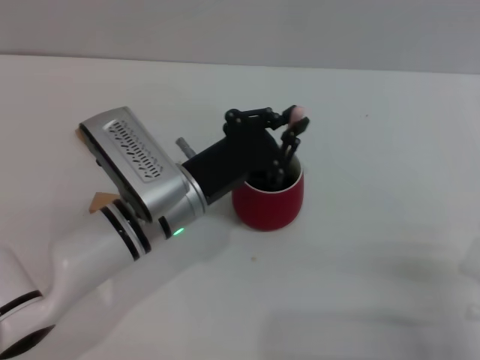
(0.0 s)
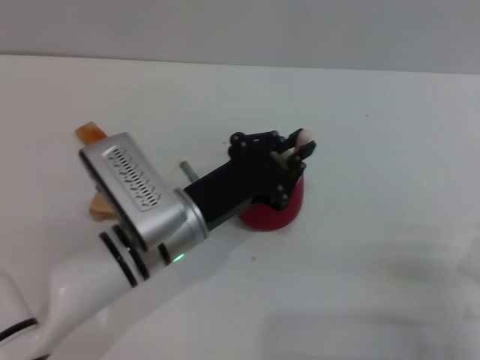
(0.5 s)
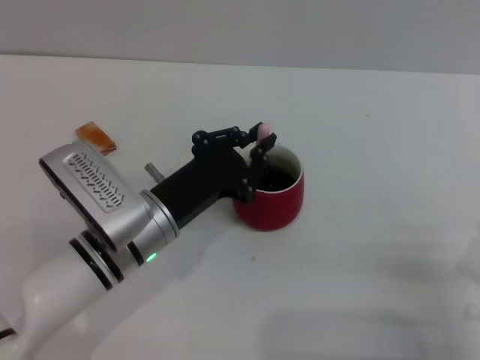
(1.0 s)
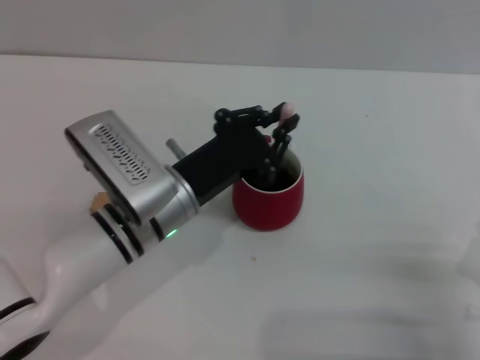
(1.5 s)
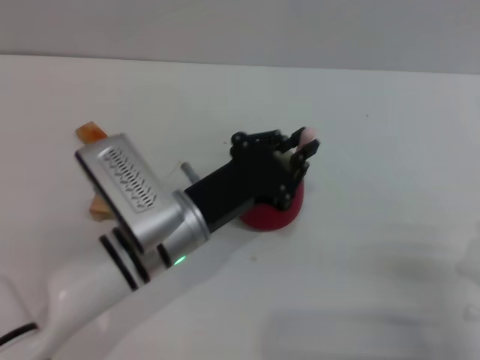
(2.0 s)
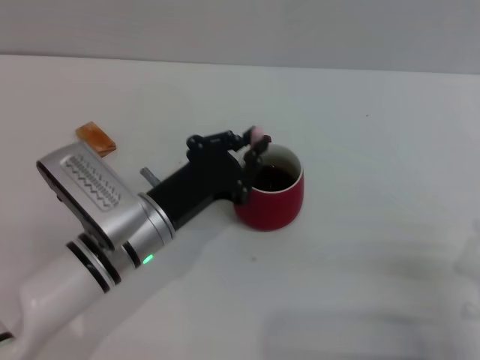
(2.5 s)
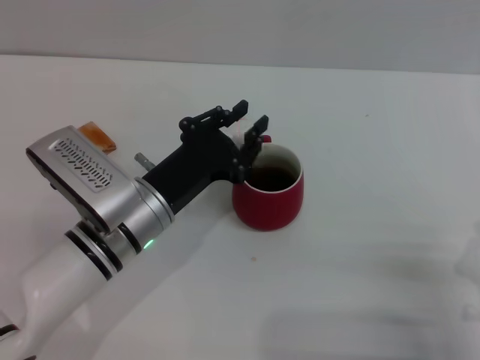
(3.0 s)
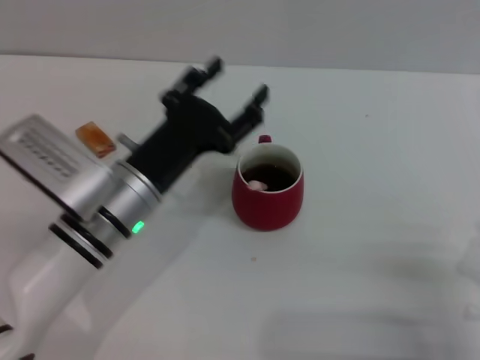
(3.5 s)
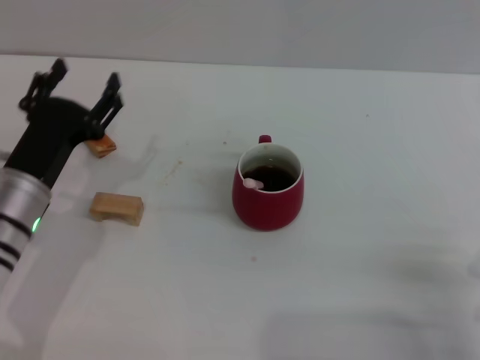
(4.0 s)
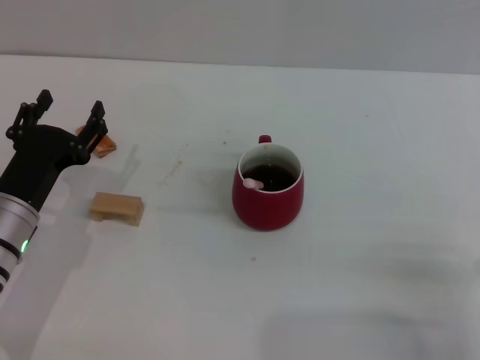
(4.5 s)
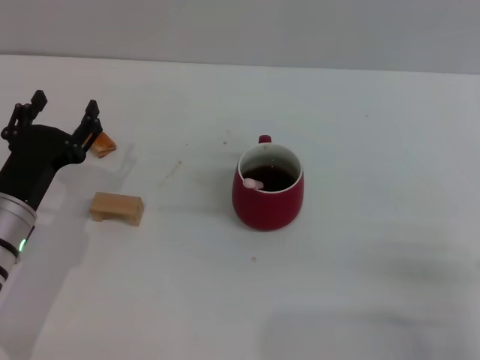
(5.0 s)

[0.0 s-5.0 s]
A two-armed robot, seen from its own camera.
Task of the whole recording: Move the red cup to the center, lift the pink spoon, stir it three times in the cup, and put the spoon into the cup.
Step, 0.0 to 3.0 s: Stir the coffee in the cup with the left gripper.
0.0 to 2.5 s: The grippers make only small movements.
2.5 to 5.0 s: The left gripper moves to the left, about 10 cm, and opens.

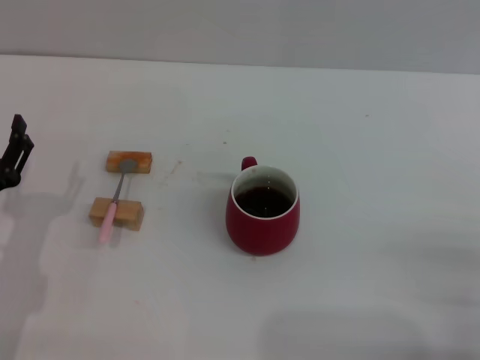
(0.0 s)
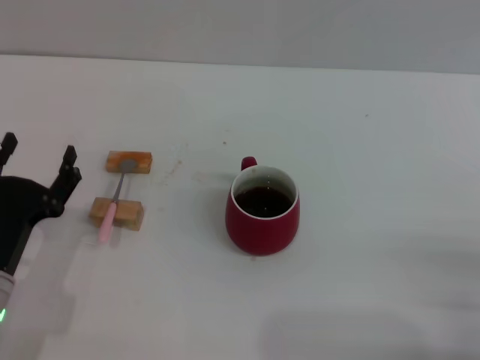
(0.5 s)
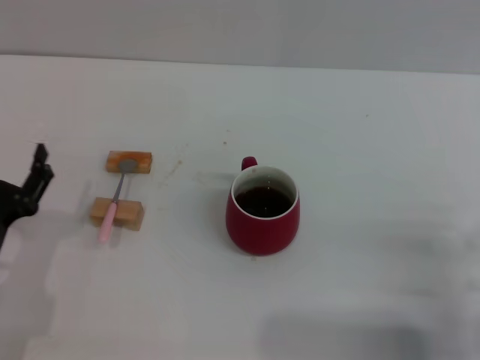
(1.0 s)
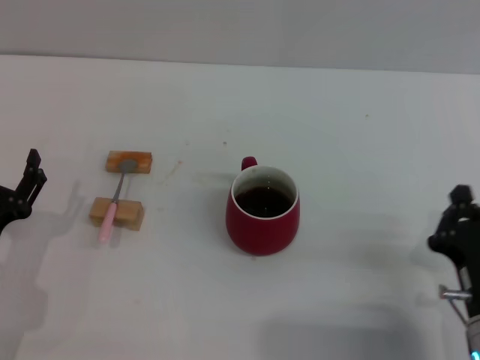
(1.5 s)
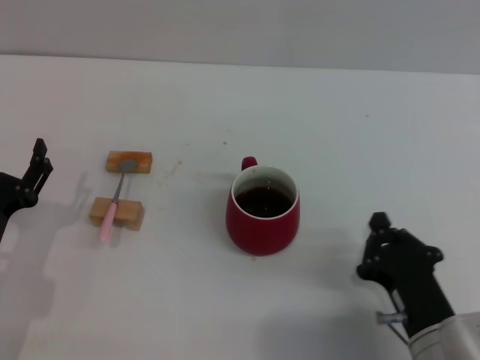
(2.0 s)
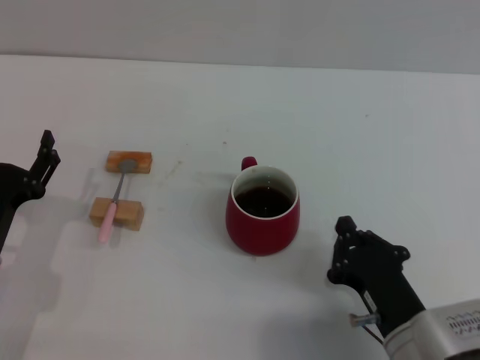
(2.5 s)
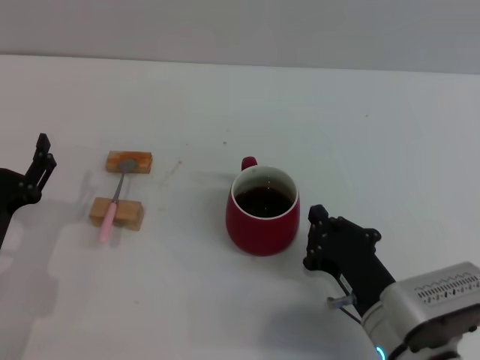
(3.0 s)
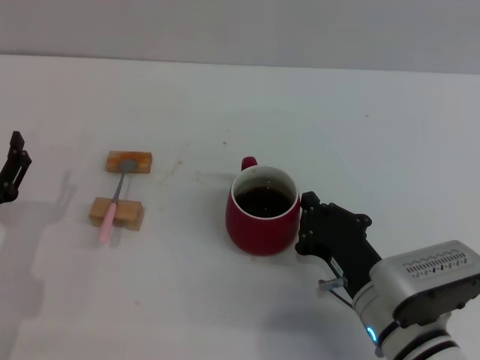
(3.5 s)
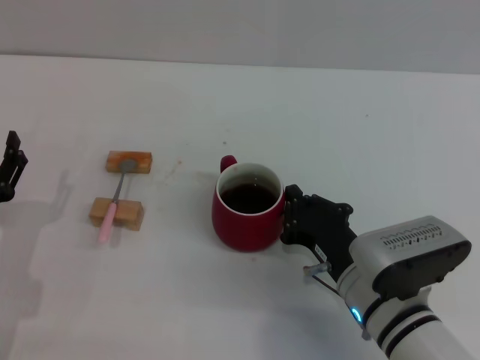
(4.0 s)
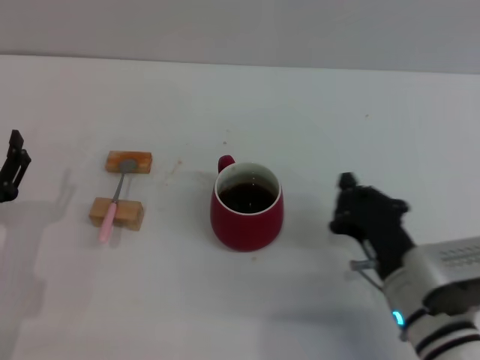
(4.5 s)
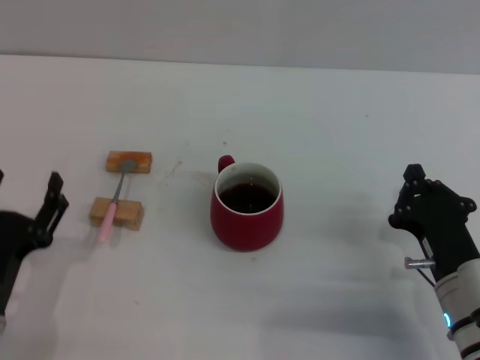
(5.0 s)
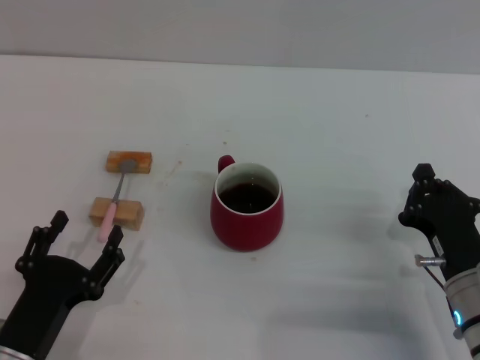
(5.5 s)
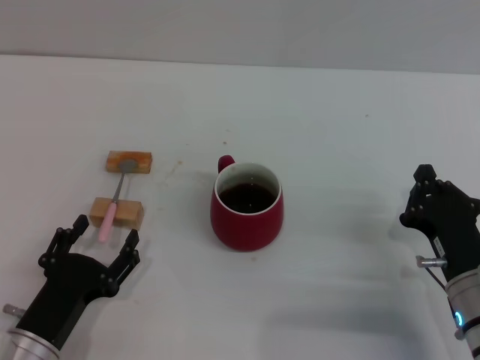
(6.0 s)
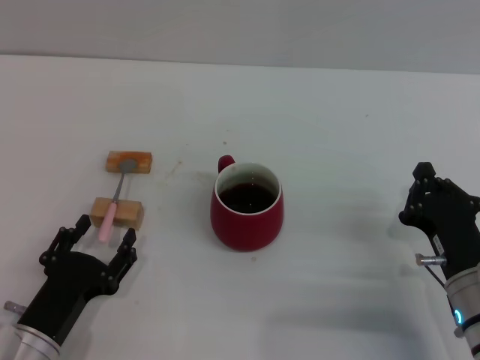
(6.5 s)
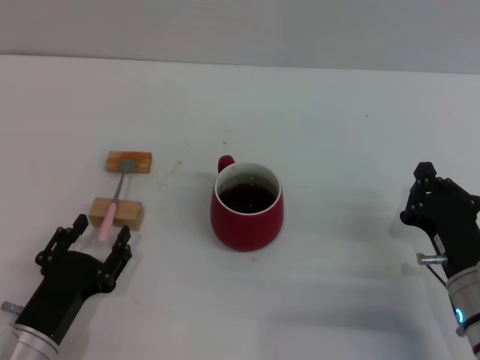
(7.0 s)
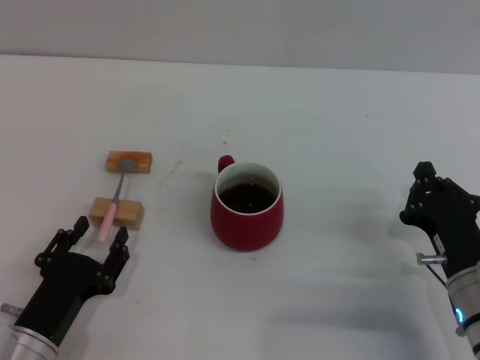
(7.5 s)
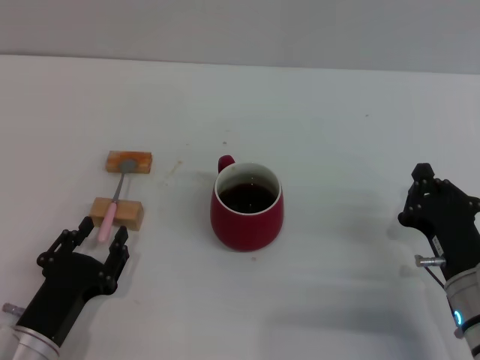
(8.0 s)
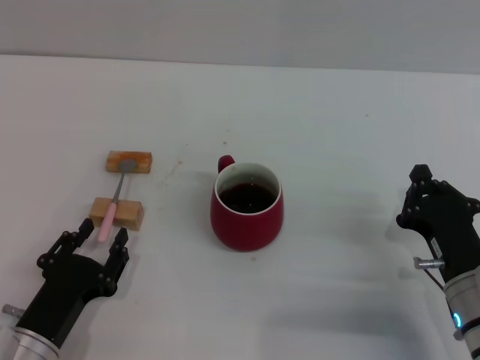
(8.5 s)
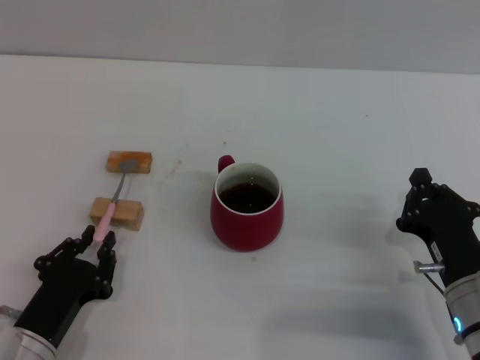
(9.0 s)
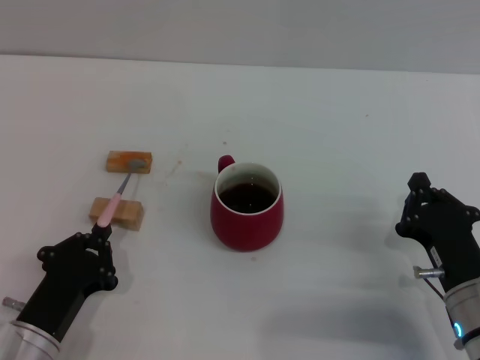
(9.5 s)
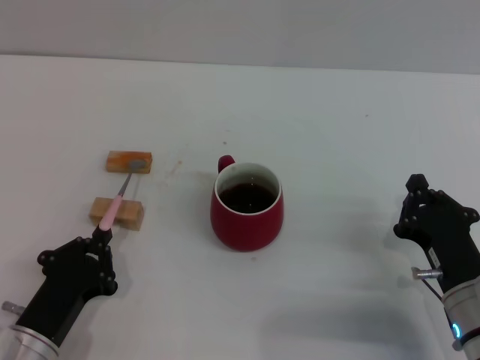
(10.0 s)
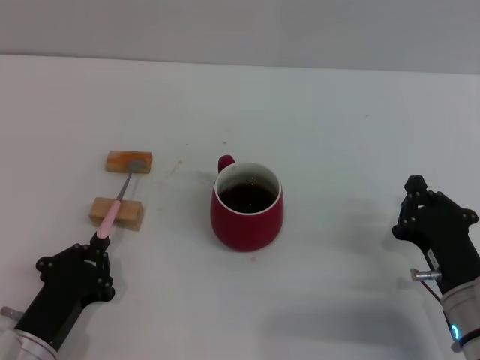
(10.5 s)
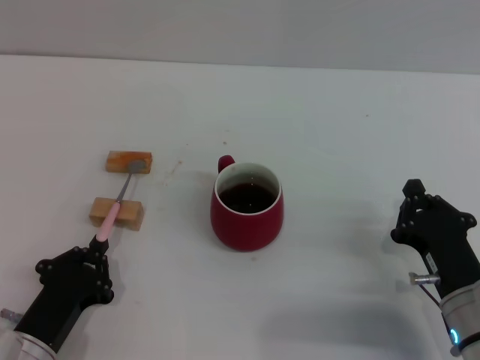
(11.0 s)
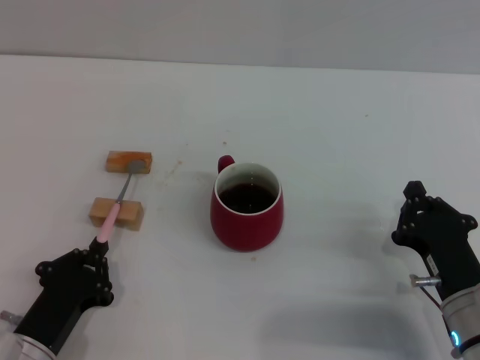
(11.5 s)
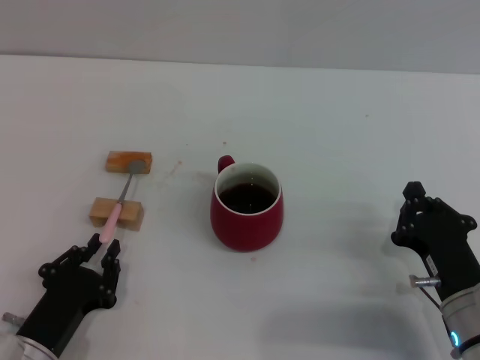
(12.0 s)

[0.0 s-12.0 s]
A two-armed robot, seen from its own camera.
Task of the whole recording: Move the red cup to the center, lift the pink spoon, stir it three times in the cup, and put the spoon into the cup.
Step, 0.0 to 4.5 s: Move the cup with coffee to the center of view with the right gripper.
0.0 to 2.0 s: The right gripper shifts approximately 10 cm to the left.
2.0 to 4.0 s: The right gripper goes roughly 5 cm forward.
4.0 to 6.0 s: The right gripper heads to the right, covering about 10 cm. The left gripper travels to the right and backward by about 10 cm.
6.0 to 8.0 s: The two grippers keep their place.
8.0 to 10.0 s: The left gripper closes up.
10.0 to 12.0 s: The two grippers keep their place.

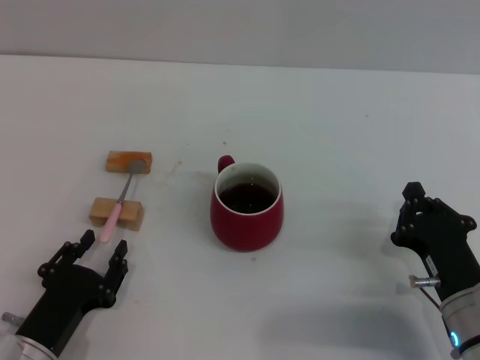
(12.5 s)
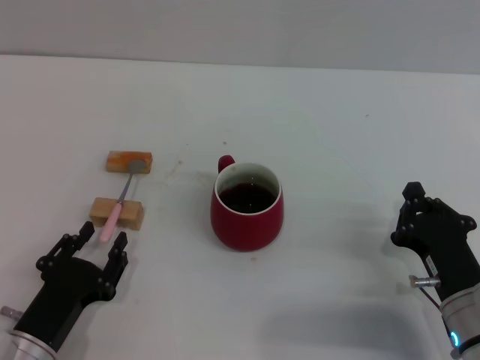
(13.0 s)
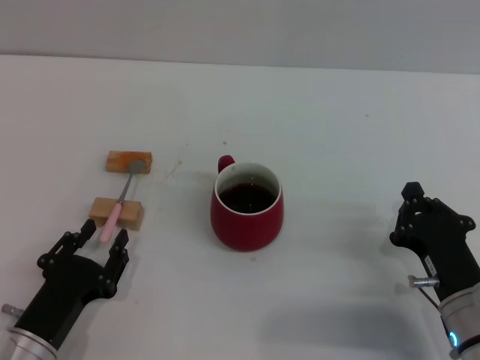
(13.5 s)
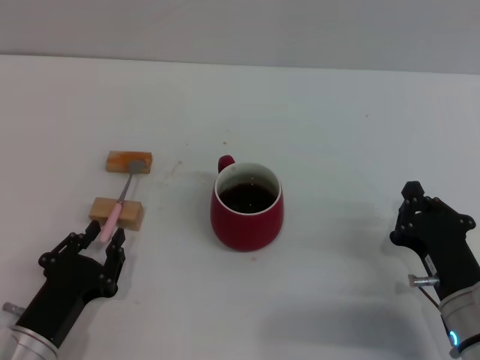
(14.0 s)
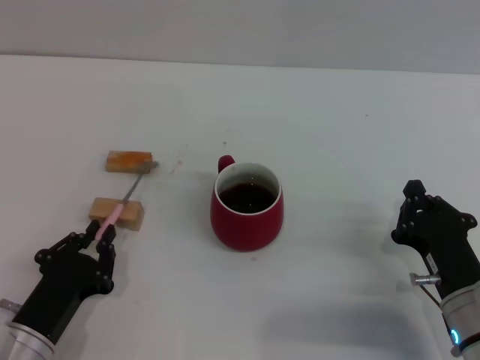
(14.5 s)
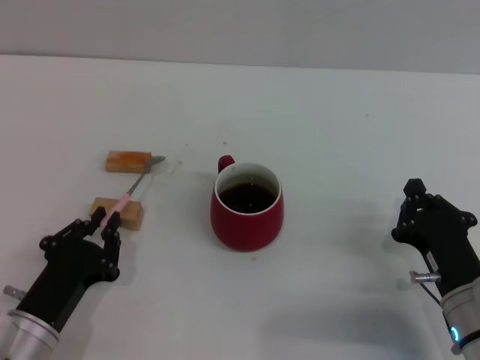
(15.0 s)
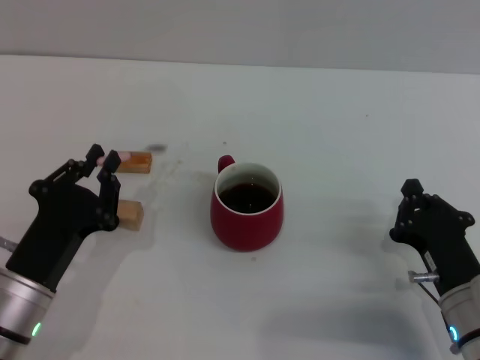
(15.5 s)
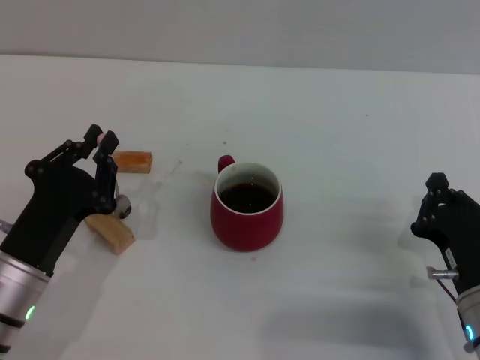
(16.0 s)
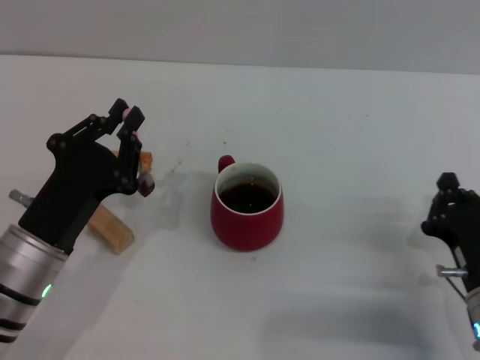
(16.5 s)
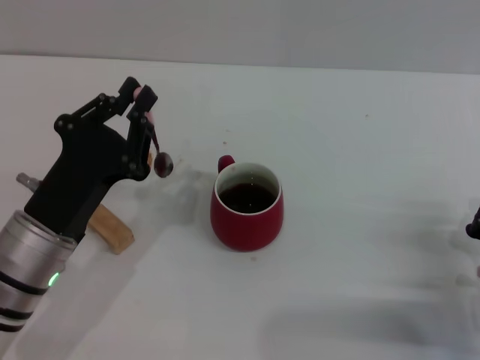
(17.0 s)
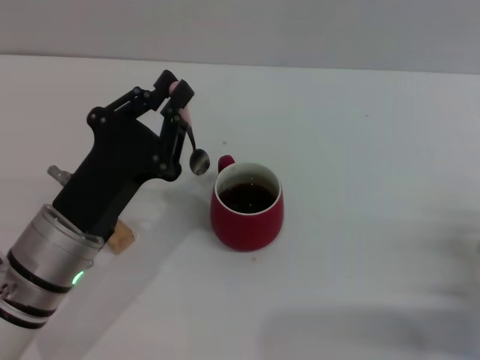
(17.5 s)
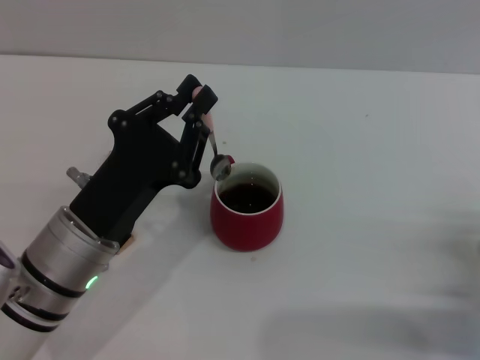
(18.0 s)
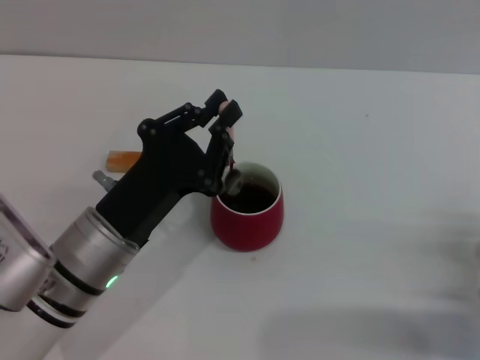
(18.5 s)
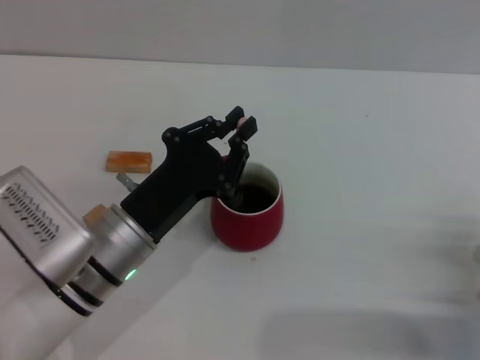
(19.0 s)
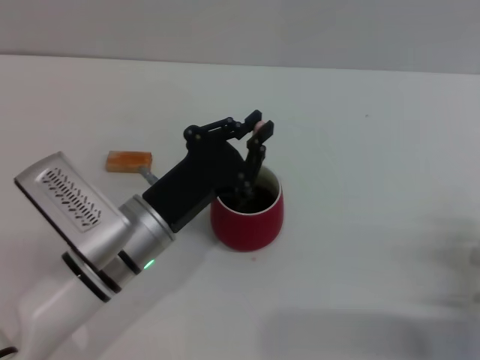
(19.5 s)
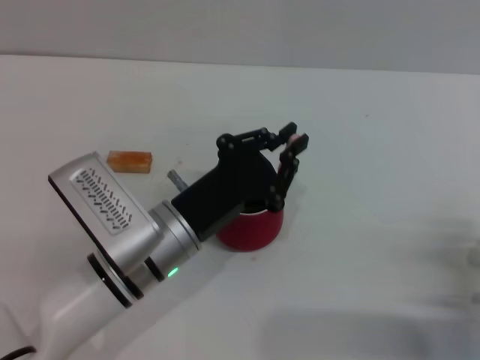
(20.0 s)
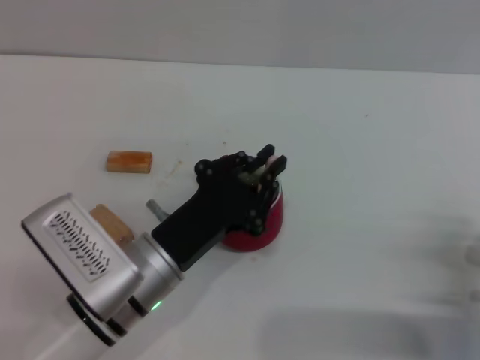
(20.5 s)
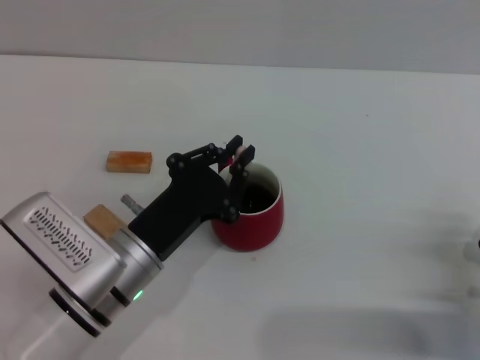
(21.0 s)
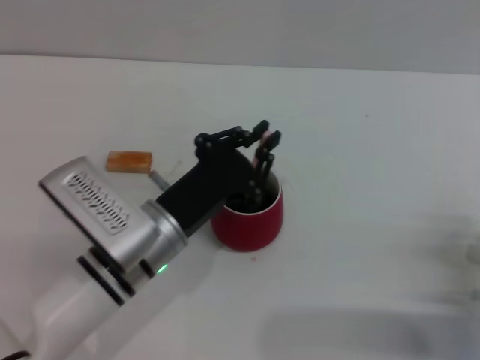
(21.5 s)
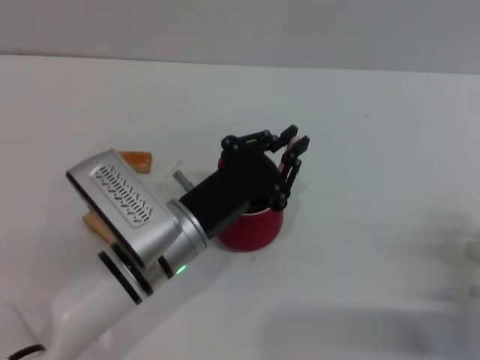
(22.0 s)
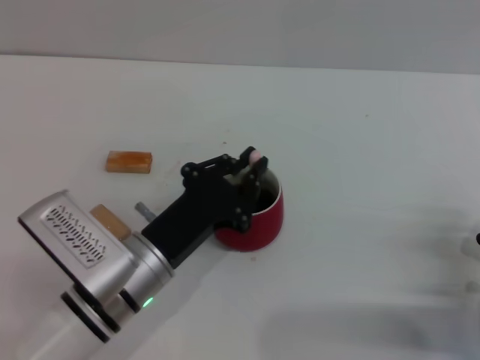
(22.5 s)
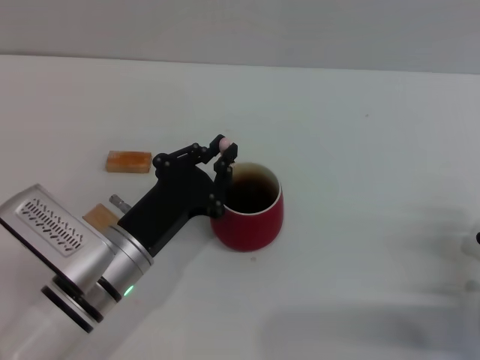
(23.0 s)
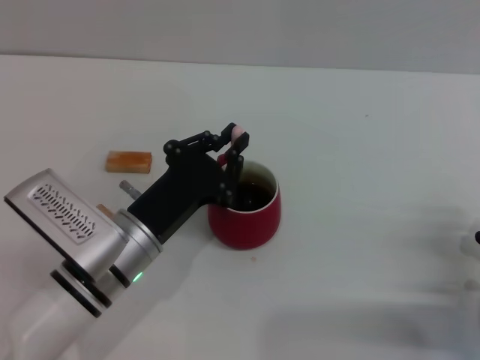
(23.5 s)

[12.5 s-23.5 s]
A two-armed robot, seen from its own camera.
Task of the whole recording: Move the red cup to the center, lift the pink spoon, stir it three times in the cup, and put the spoon into the cup.
Step, 12.5 to 16.5 s: Pick up the spoon with the left gripper.
12.5 to 14.5 s: The two grippers keep their place.
14.5 to 16.0 s: The left gripper is displaced upward by about 5 cm.
16.0 to 18.0 s: Both grippers travel together to the right, about 5 cm.
18.0 to 20.0 s: The left gripper goes some 5 cm to the right.
20.0 to 23.5 s: The grippers make only small movements.
